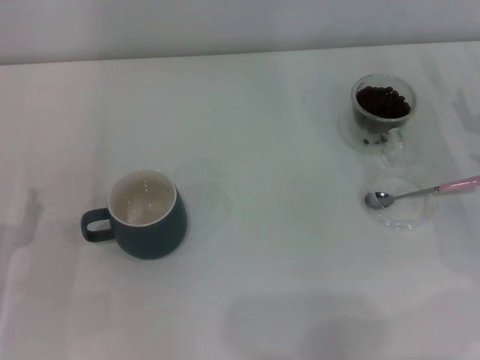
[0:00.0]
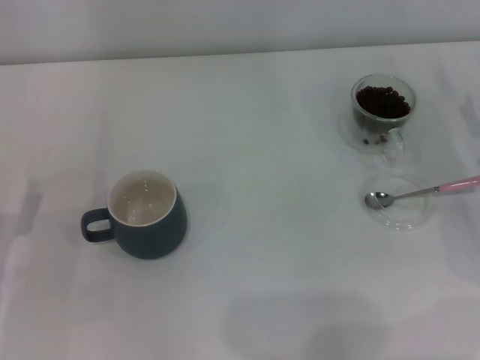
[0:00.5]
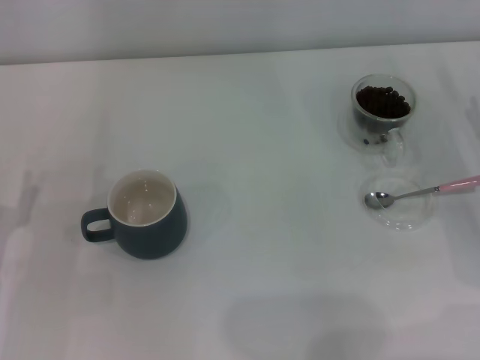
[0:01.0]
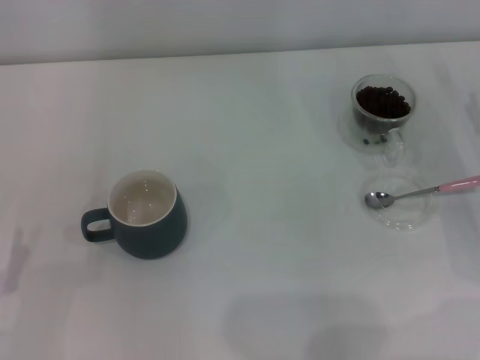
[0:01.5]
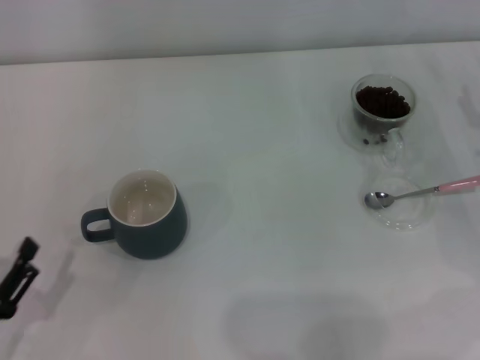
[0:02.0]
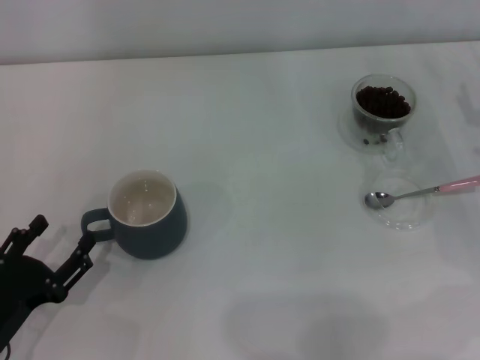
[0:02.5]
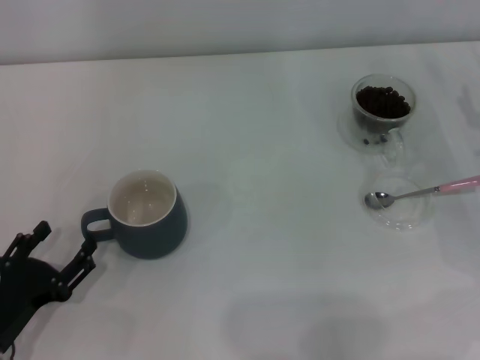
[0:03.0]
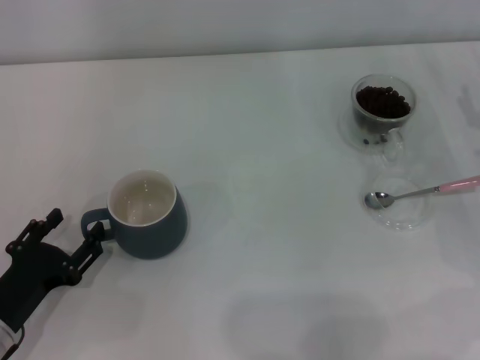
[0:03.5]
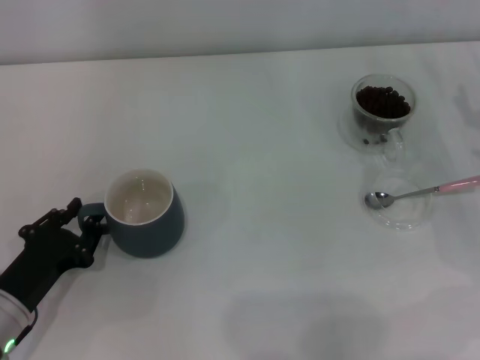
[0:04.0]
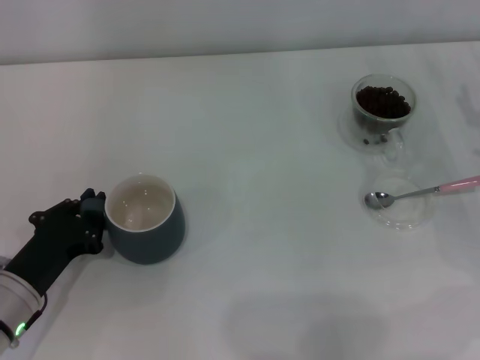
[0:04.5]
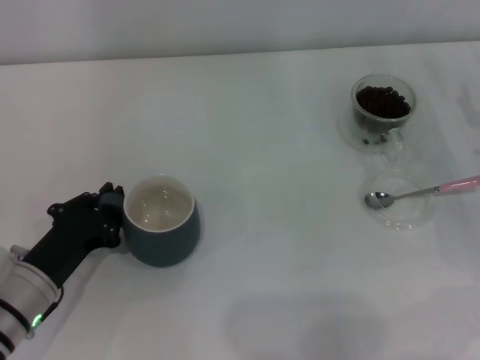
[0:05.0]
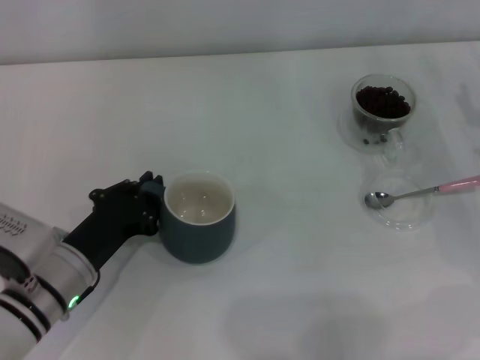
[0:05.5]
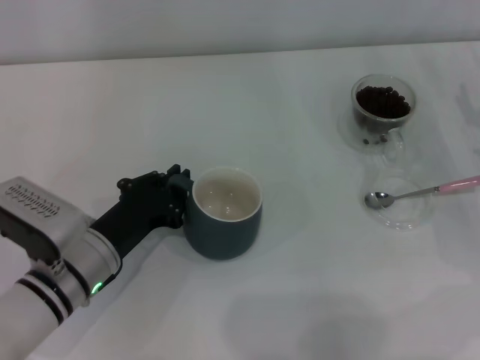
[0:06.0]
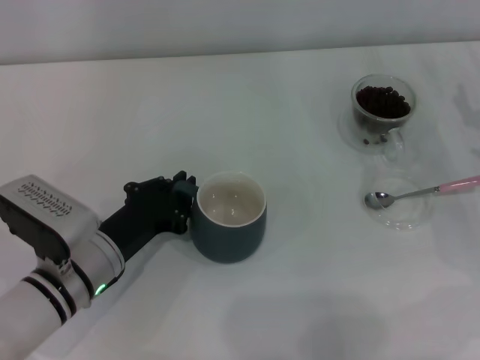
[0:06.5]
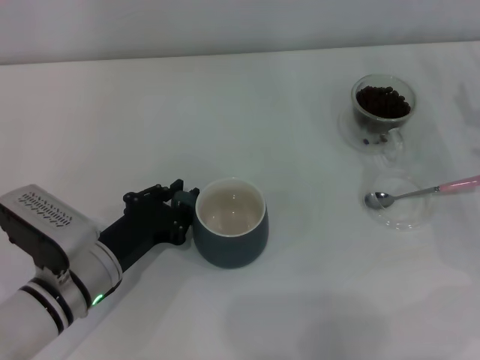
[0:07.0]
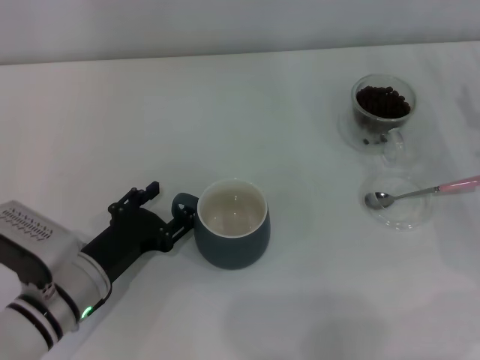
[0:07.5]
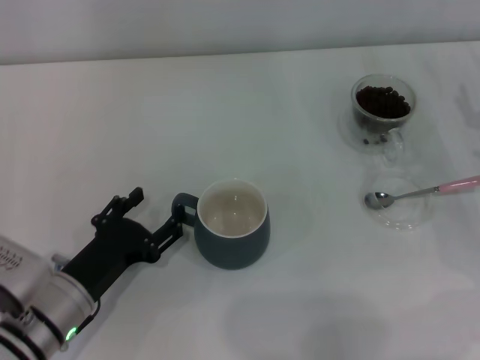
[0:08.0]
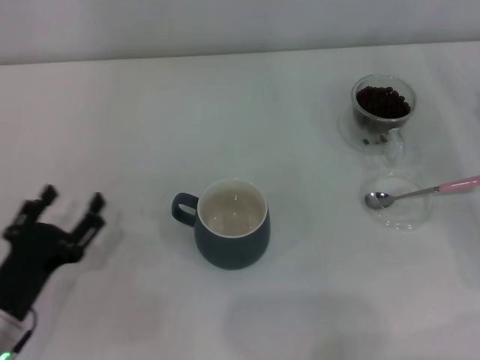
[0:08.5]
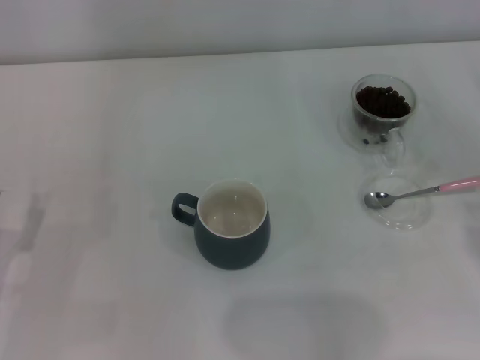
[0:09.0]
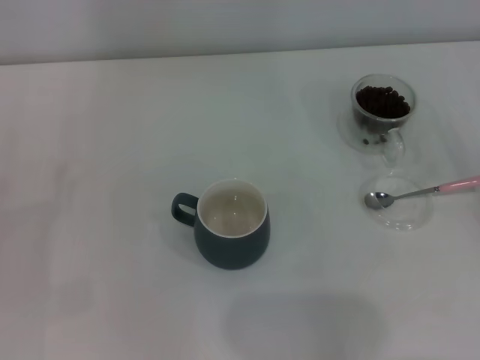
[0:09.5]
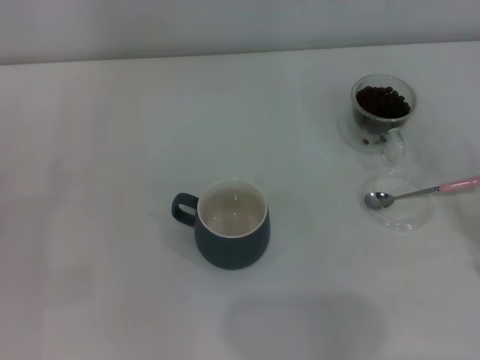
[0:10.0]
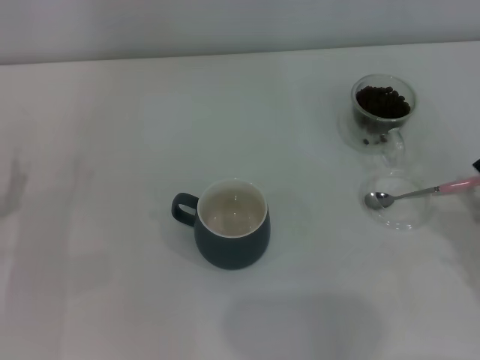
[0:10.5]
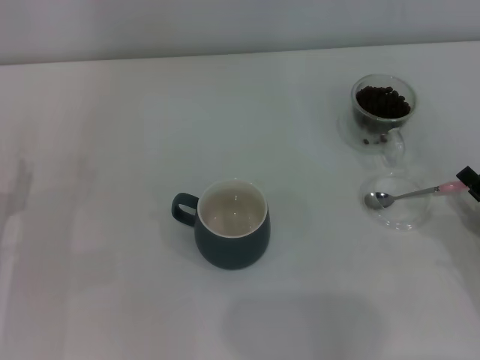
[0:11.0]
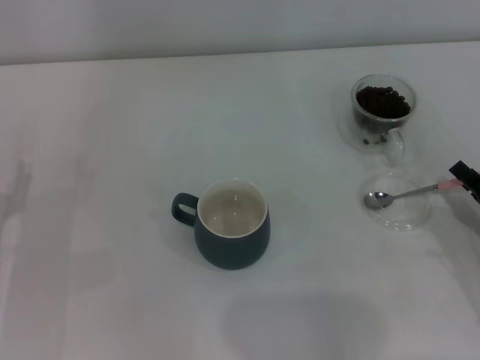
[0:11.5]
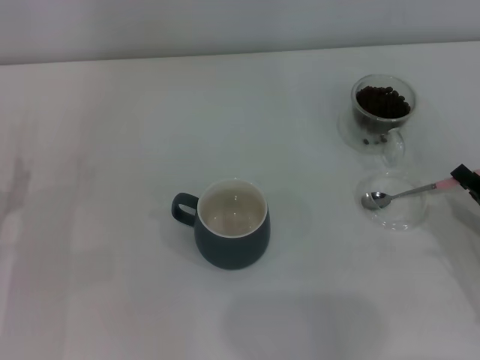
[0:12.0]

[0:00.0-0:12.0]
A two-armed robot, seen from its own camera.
Task of the whole recording: Use a pink spoon to take out the coffee beans from the glass and pour them into the gray cup.
Step, 0:00.0 to 0:08.0: Move the cup to the center of view with the left gripper.
0:00.0 to 0:02.0: The left gripper is displaced backward by some 5 cm.
0:02.0 to 0:04.0: The left gripper heads forward, covering about 10 cm, and closes up.
0:04.0 to 0:06.0: The left gripper is displaced to the right by some 10 cm, and closes.
0:06.0 to 0:08.0: The left gripper opens its fingers.
0:08.0 to 0:10.0: The right gripper is displaced backward by some 15 cm, while the left gripper moves to the left, about 15 cm.
0:10.0 to 0:12.0: The right gripper closes.

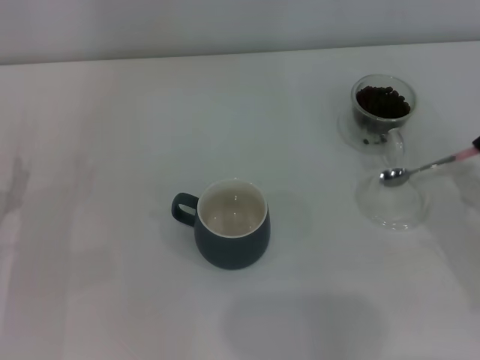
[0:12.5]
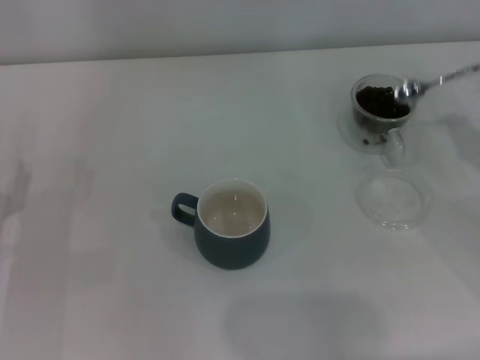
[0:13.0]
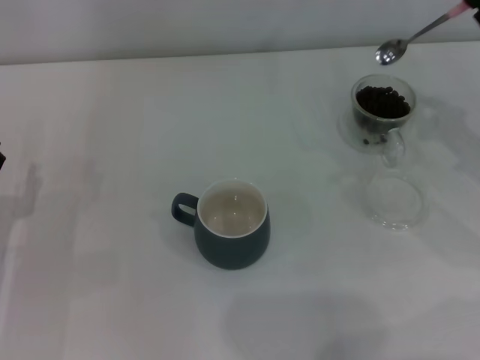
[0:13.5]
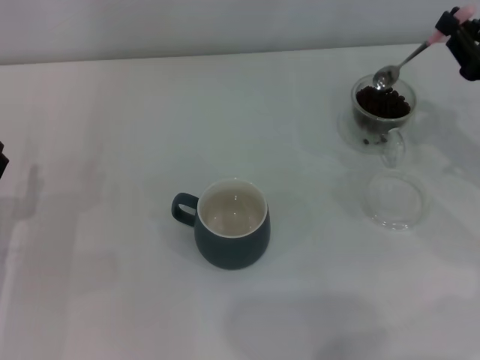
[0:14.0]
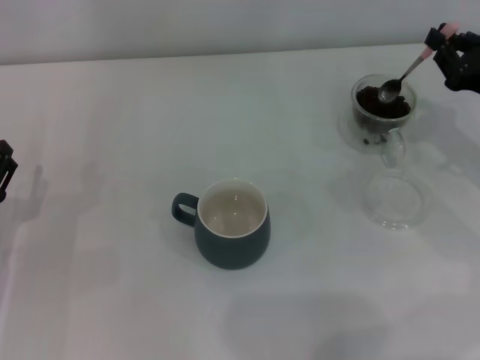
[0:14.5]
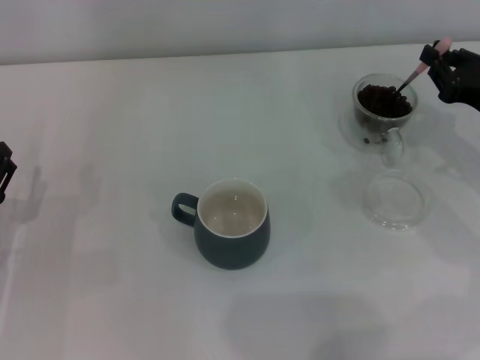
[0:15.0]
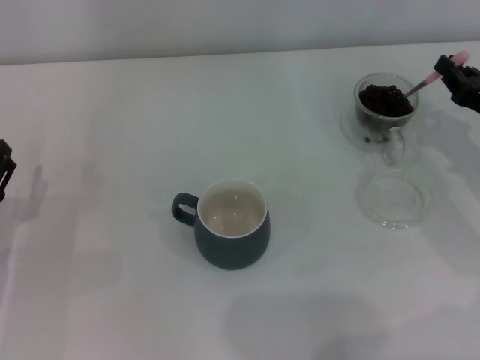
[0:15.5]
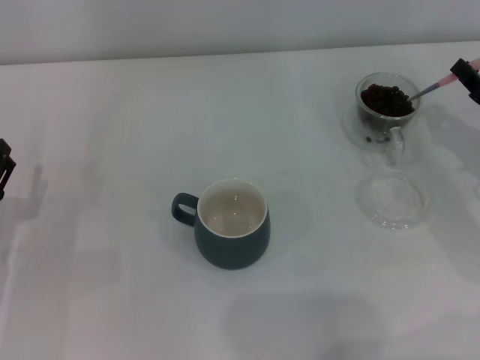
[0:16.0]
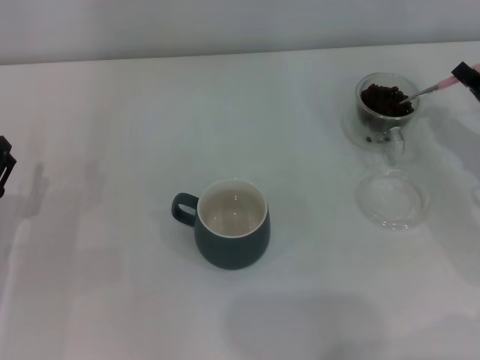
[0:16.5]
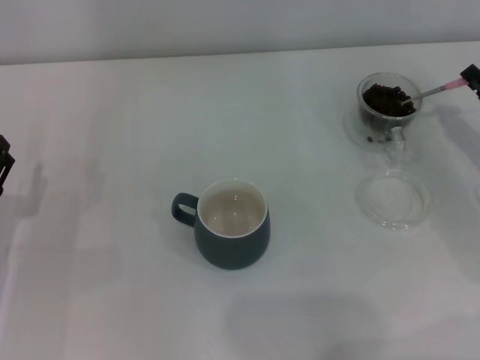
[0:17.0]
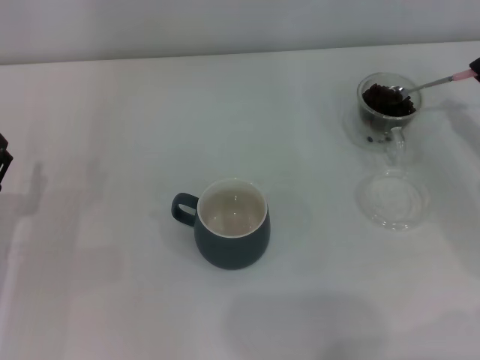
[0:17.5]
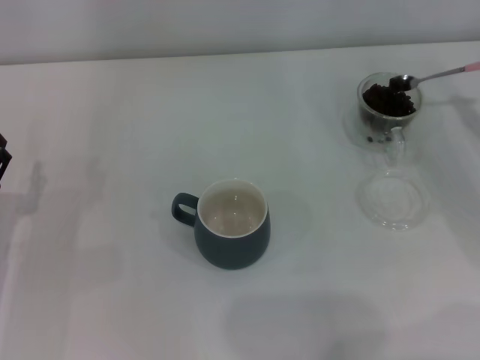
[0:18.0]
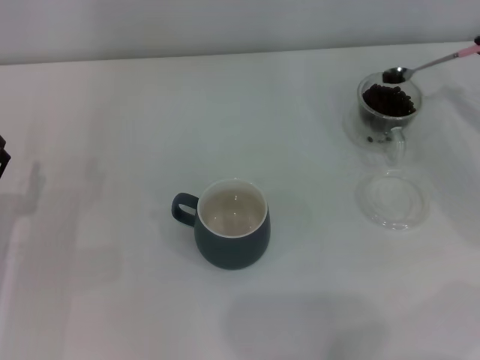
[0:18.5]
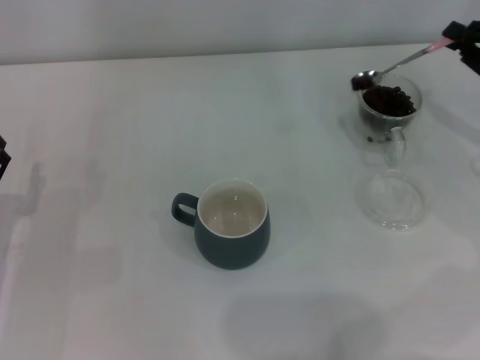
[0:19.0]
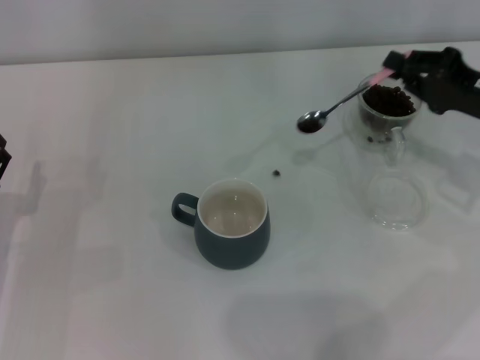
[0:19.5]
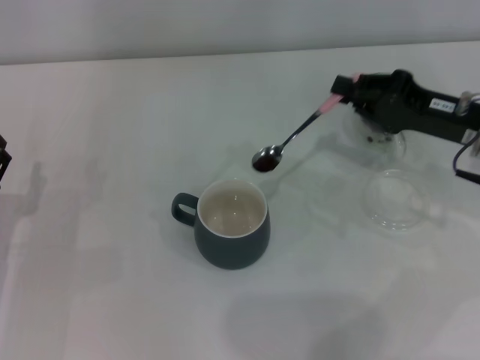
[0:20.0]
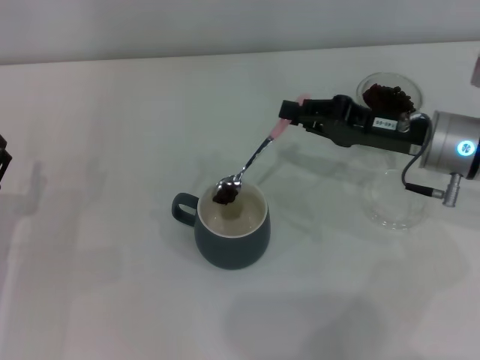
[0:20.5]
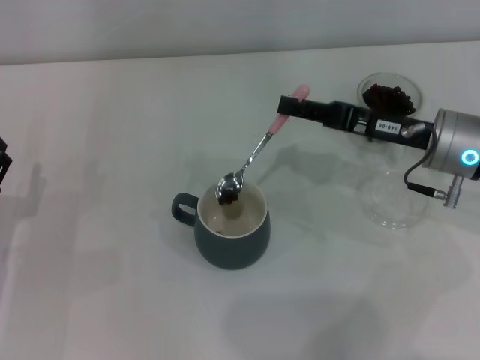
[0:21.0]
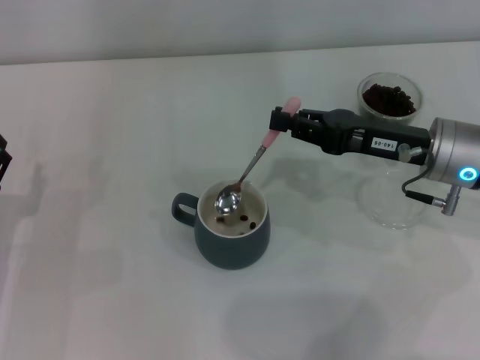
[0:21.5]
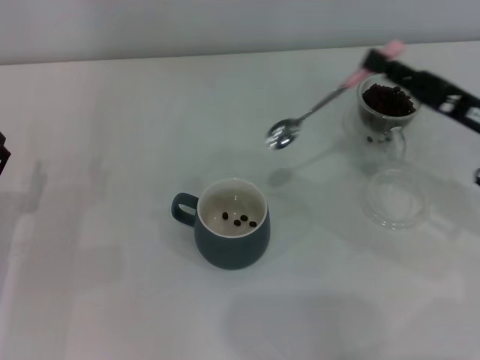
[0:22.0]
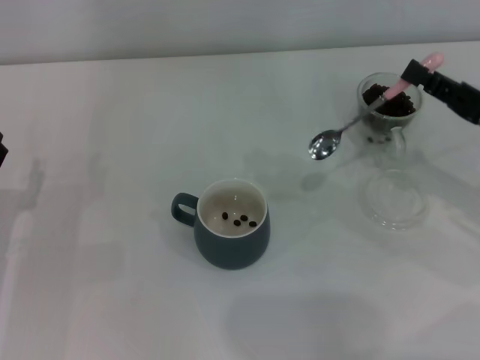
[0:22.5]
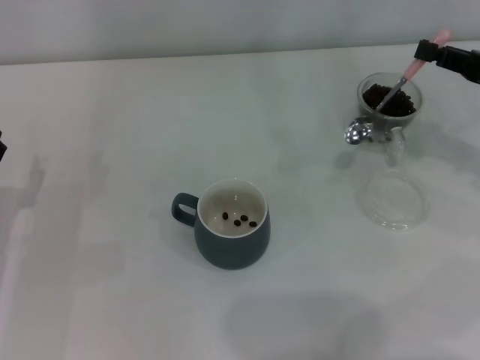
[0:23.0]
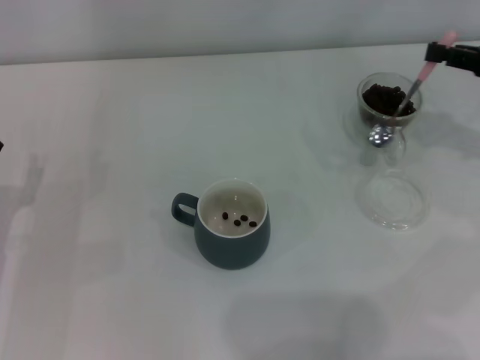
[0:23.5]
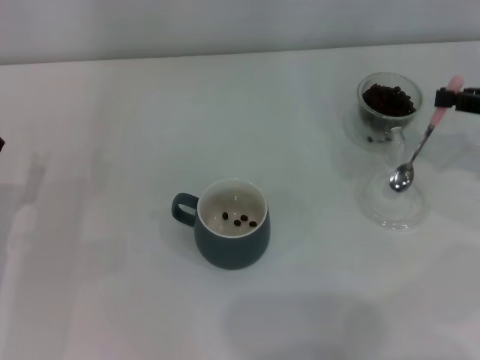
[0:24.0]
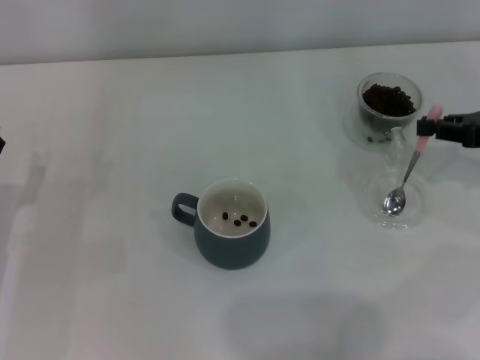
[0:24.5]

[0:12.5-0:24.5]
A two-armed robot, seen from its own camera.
Task of the whole recording: Use a pink spoon to take out the coffee beans from the glass and pour them into the gray cup.
Step, 0:13.0 to 0:21.5: Scoop a spoonful of beans into the cup with the right gripper.
0:12.5 to 0:14.5: The right gripper moves forward and upward, some 15 cm.
0:16.5 to 0:18.5: The right gripper shifts by roughly 5 cm.
0:18.5 to 0:20.5: The right gripper shifts approximately 15 cm to the left.
0:20.5 to 0:22.5: The right gripper shifts roughly 10 cm to the right and backward.
0:22.5 to 0:24.5: The right gripper travels to the right by approximately 5 cm.

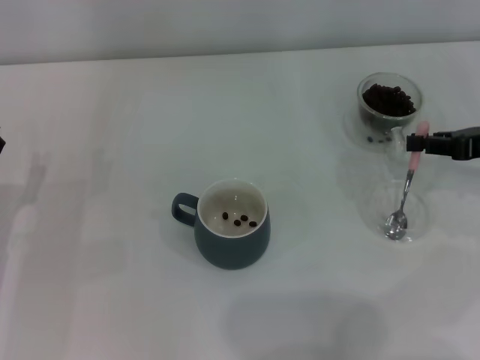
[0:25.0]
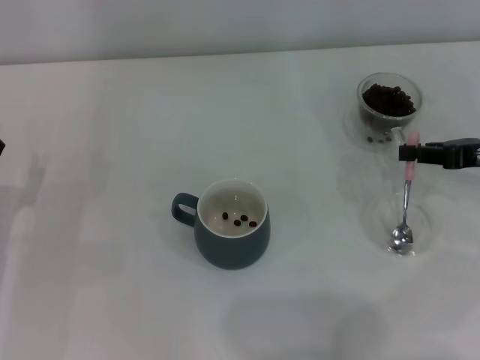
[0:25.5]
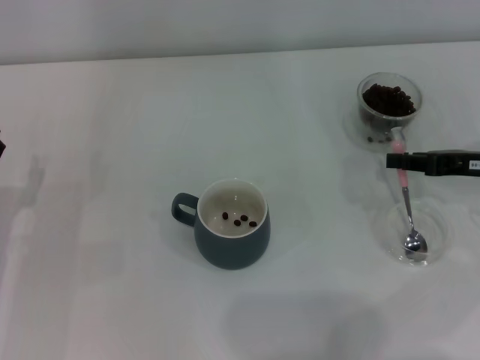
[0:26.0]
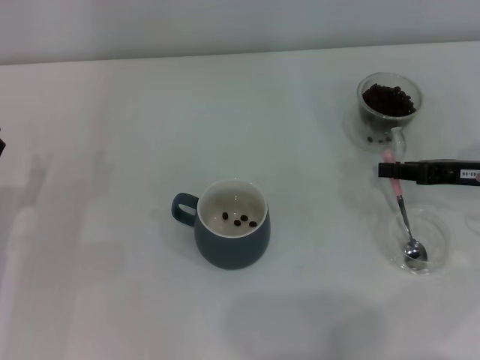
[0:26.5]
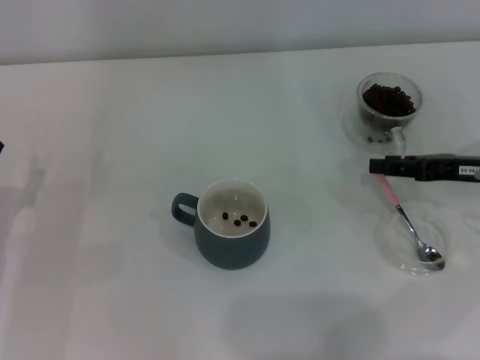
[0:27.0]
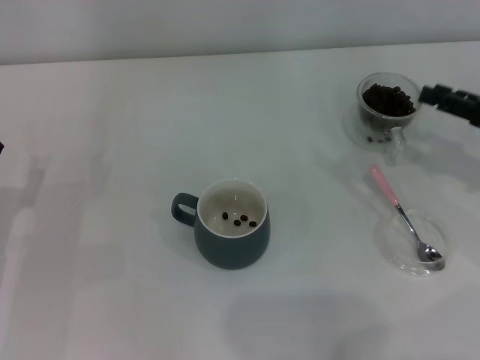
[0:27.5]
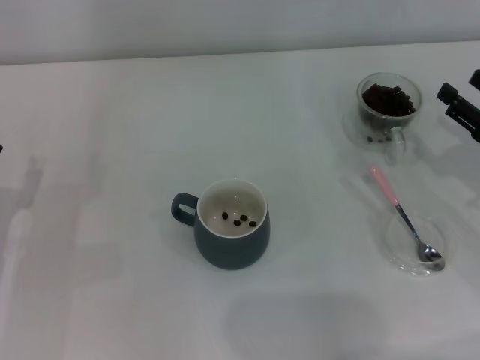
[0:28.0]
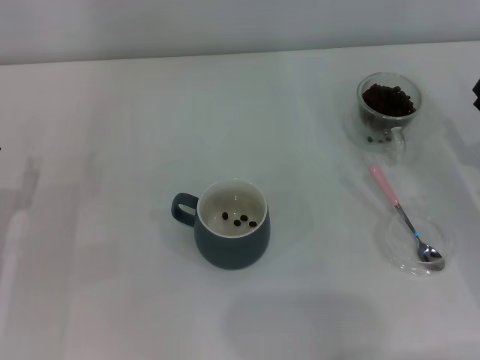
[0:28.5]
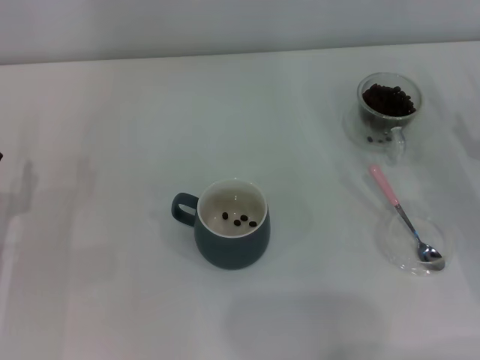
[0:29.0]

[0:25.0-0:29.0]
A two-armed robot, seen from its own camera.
Task of the whole recording: Use a pink spoon to take out the coffee beans from the glass and pour them into the gray cup.
Step, 0:25.0 to 0:27.0: Place the spoon back in its original place with the right gripper.
0:25.0 to 0:27.0: The right gripper opens up.
0:27.0 to 0:29.0: The right gripper changes place by approximately 5 cm, and opens.
